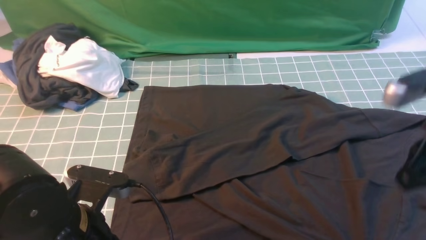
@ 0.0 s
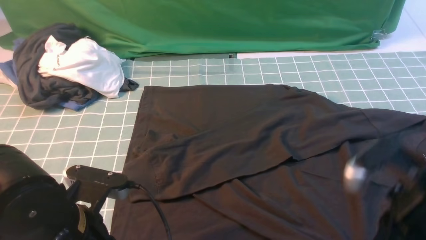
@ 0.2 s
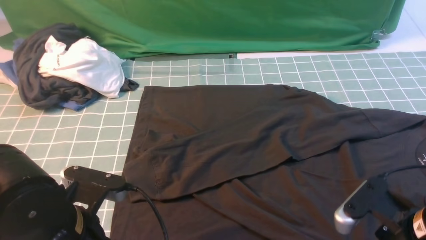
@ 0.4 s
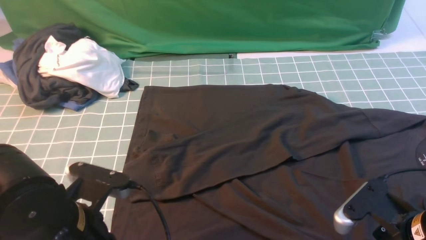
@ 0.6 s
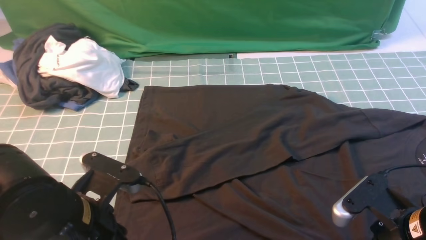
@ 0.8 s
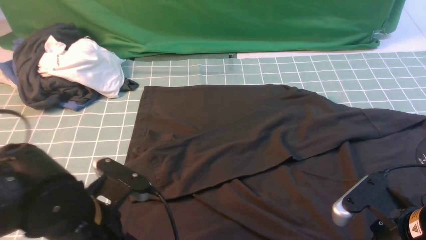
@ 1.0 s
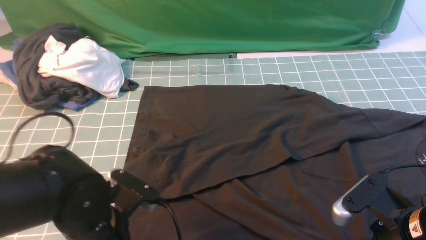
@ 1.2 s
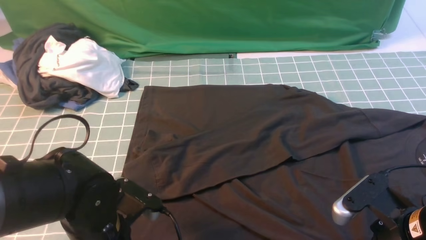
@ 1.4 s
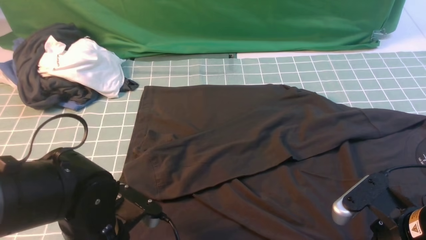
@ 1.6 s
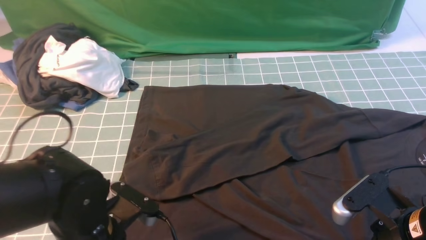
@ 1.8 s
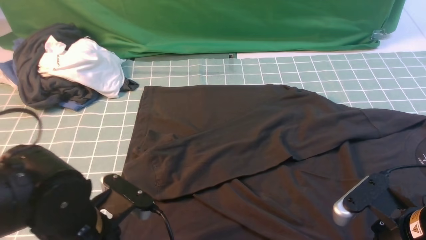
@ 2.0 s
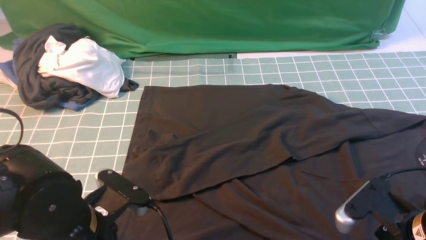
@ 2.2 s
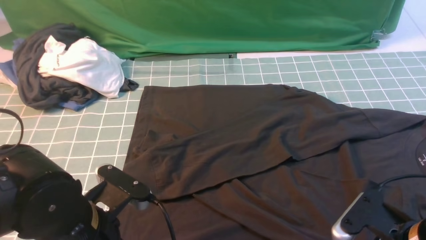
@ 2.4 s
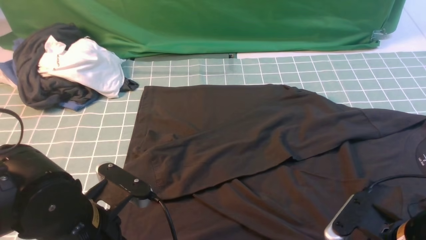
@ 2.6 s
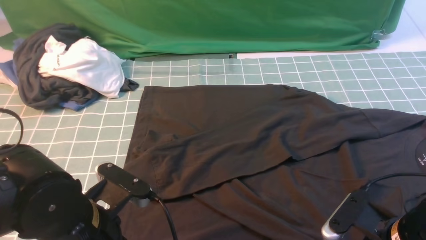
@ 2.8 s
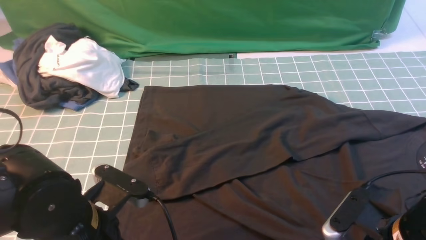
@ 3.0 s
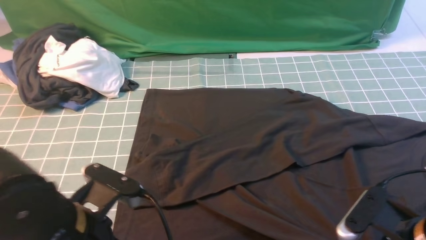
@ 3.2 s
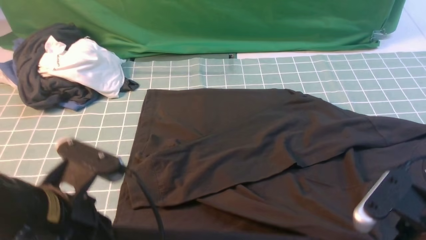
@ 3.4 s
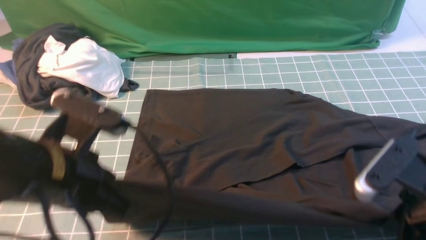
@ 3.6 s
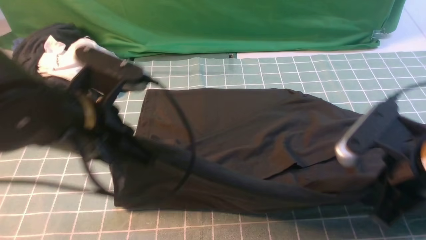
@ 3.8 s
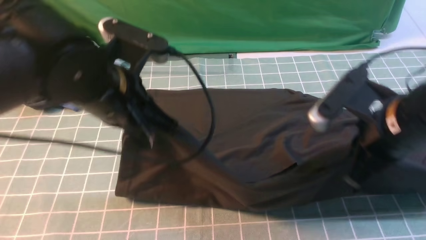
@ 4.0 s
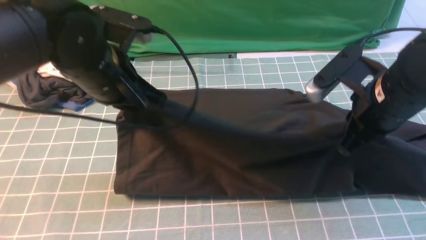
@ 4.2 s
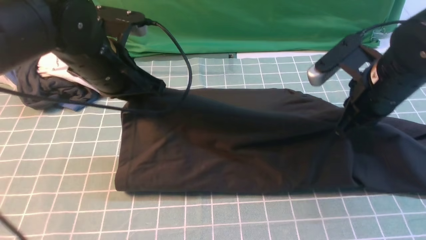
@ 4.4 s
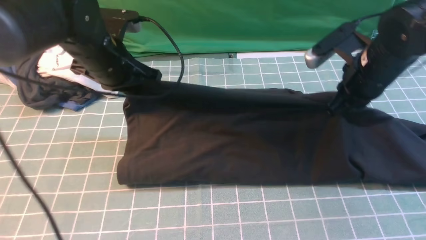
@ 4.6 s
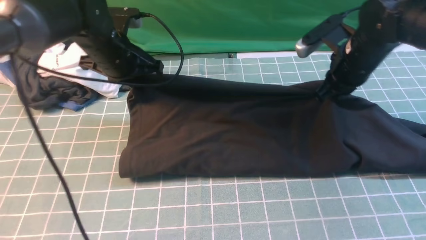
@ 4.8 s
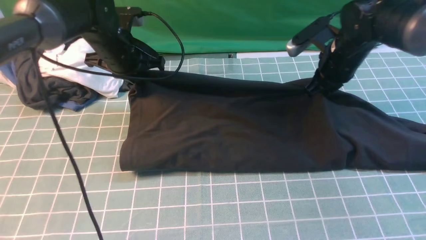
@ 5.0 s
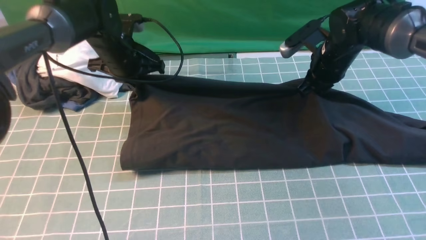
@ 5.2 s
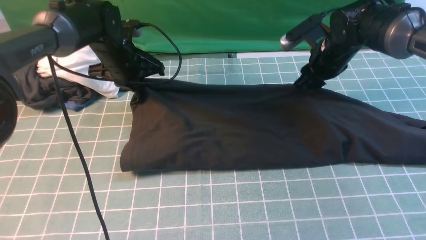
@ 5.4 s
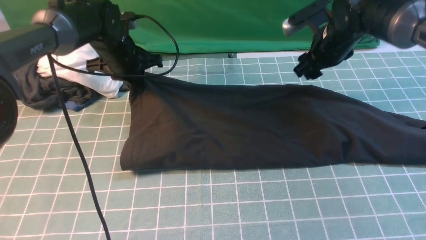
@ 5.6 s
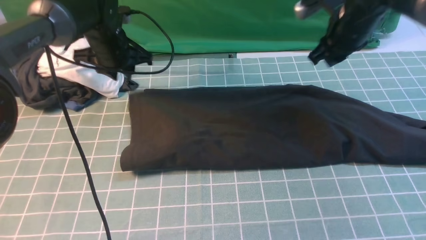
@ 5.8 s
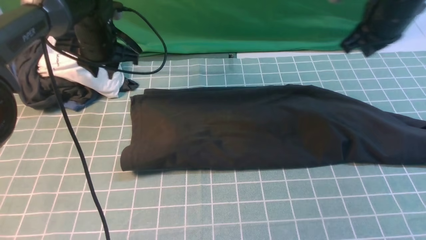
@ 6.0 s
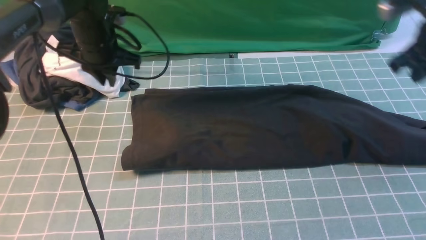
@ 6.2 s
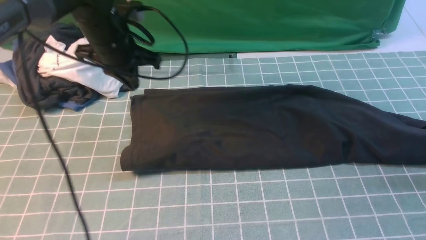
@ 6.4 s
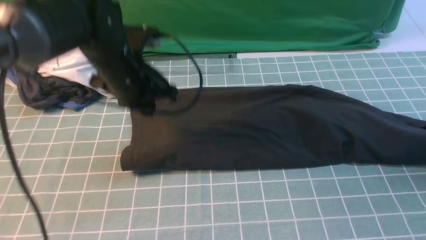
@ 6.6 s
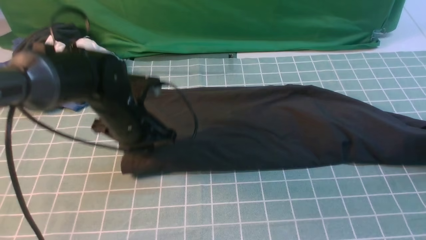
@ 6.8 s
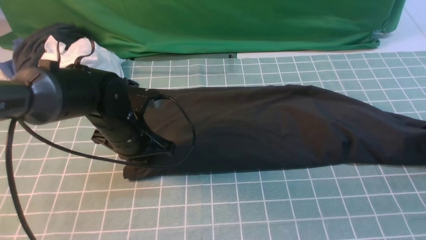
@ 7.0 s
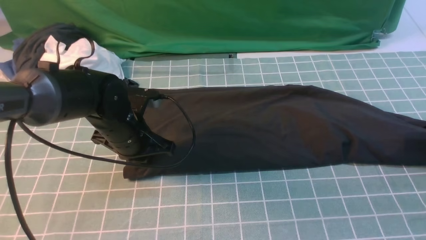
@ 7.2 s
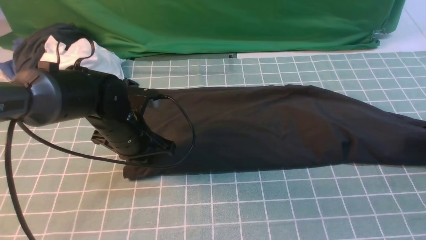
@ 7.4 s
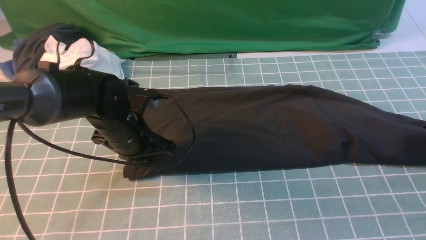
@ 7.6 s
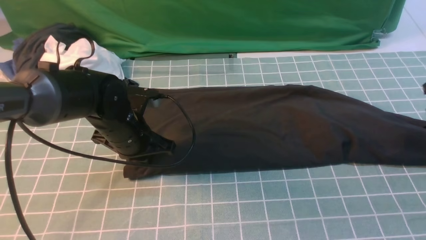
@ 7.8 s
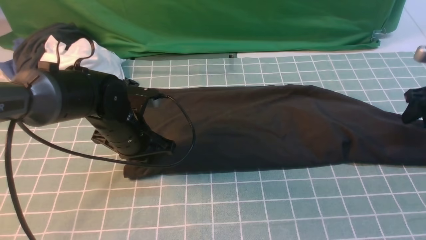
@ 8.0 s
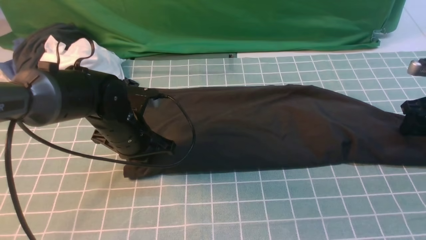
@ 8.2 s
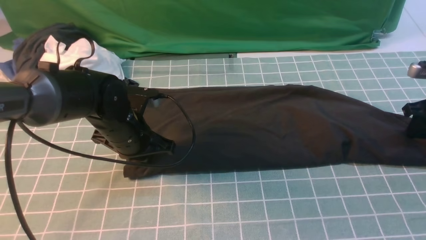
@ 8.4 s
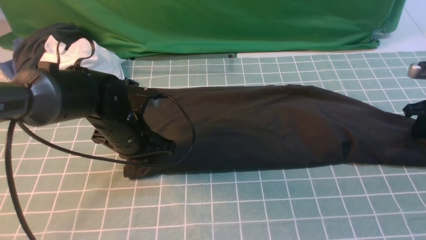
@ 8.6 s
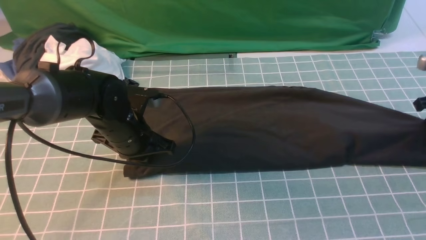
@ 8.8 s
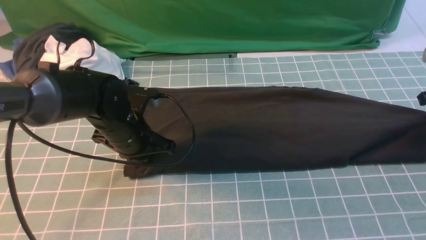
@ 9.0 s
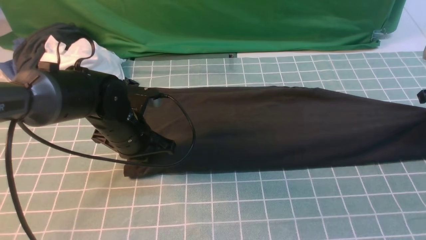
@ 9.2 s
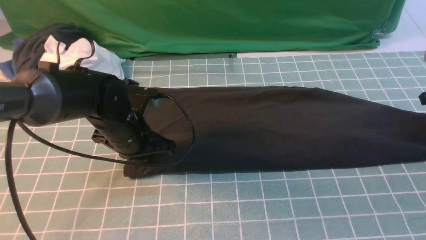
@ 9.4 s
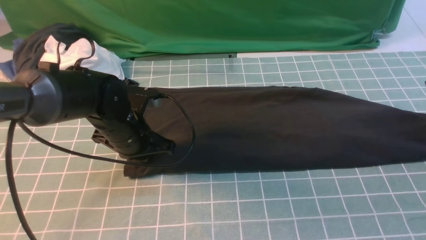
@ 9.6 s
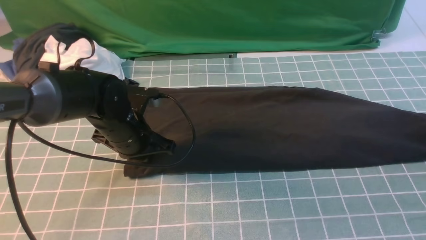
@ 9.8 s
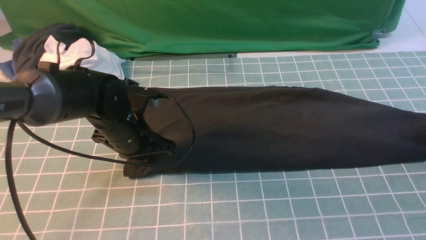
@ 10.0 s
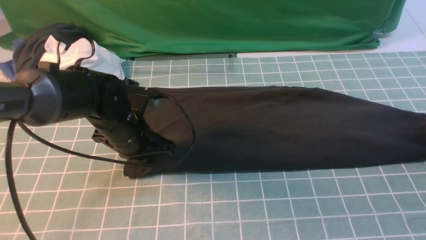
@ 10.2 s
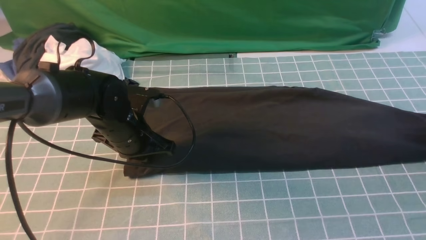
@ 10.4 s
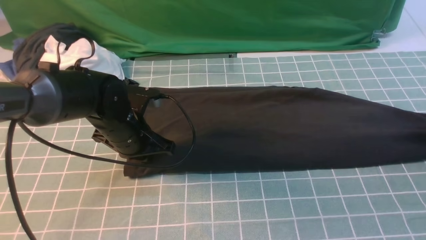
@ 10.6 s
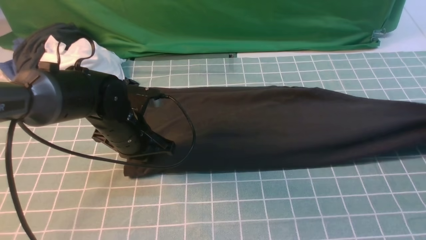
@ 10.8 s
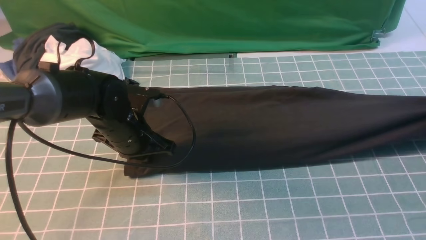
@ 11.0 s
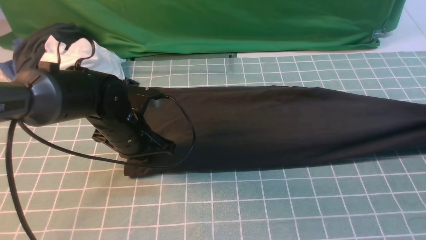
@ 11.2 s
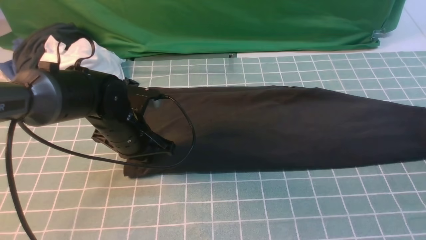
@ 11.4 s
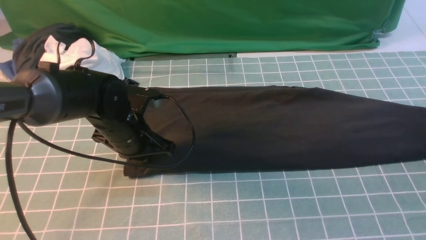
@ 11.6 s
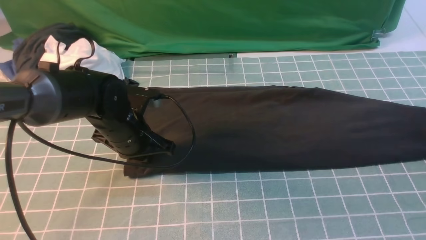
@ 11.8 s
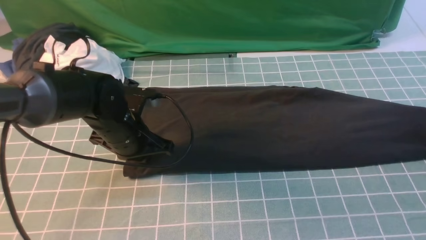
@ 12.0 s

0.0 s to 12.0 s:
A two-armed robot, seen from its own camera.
Step, 0.0 to 3.2 s: use both arms simultaneously to clamp the lower edge of the clothing fabric.
Step, 3.6 to 5.8 s: use both arms to drag the lower edge of the fabric forward and fold it over the upper edge.
0.0 to 1.6 s: The right gripper goes roughly 10 cm downward and backward, and opens up, while the left gripper ends up approximately 5 cm from where it was, and opens, then closes once more.
1.6 to 3.0 s: The right gripper closes.
3.0 to 4.4 s: The left gripper shifts approximately 20 cm forward, while the right gripper travels forward and upward by about 20 cm.
4.4 to 6.0 s: The right gripper moves forward and to the right, about 10 cm, and opens, then closes once more. The left gripper is displaced forward and to the left by approximately 15 cm.
6.0 to 7.6 s: The left gripper heads backward, downward and to the right, covering roughly 15 cm, and closes its fingers. Meanwhile the right gripper shifts approximately 20 cm to the right and downward, and opens, then closes once more.
7.6 to 9.0 s: The right gripper opens and closes again.
10.4 to 12.0 s: The right gripper opens its fingers.

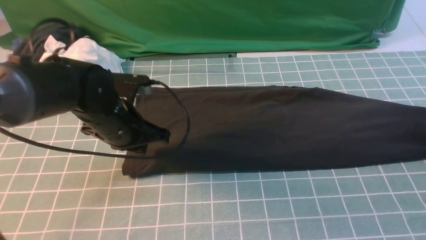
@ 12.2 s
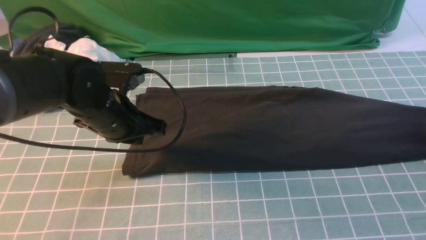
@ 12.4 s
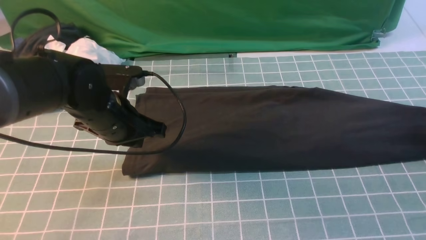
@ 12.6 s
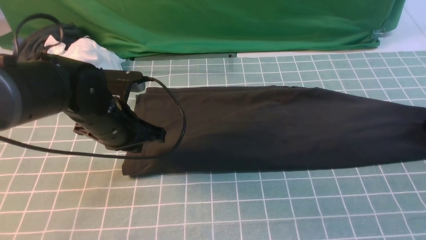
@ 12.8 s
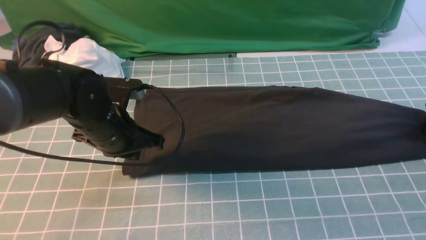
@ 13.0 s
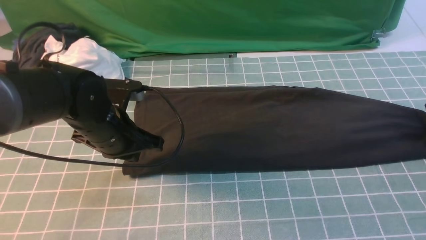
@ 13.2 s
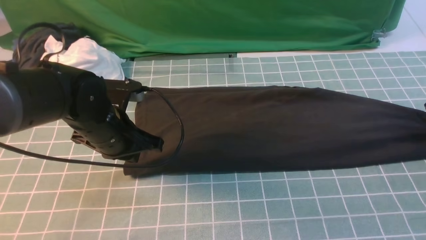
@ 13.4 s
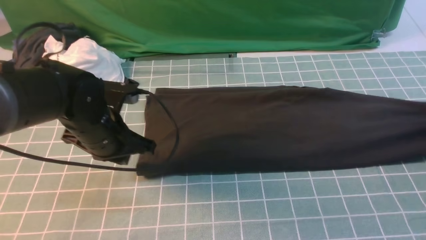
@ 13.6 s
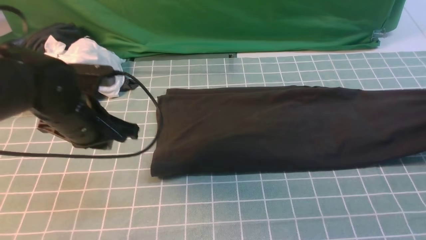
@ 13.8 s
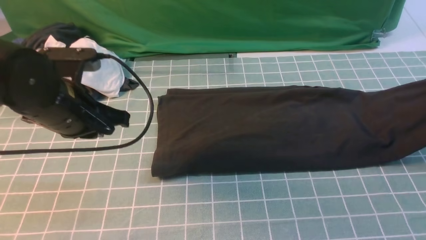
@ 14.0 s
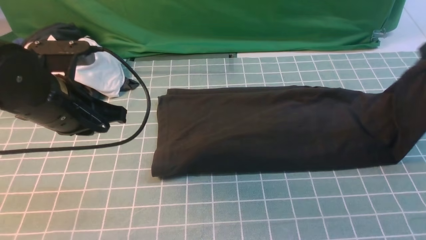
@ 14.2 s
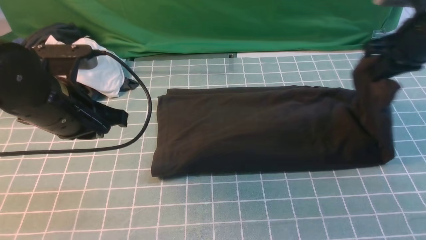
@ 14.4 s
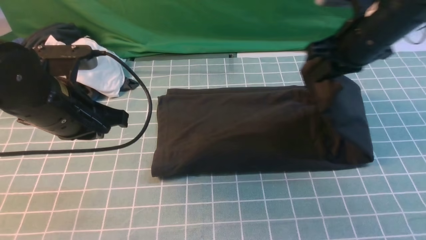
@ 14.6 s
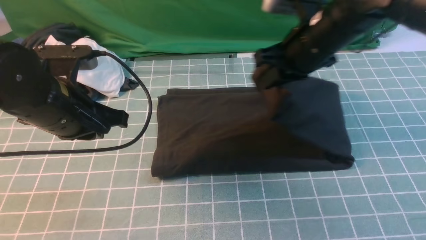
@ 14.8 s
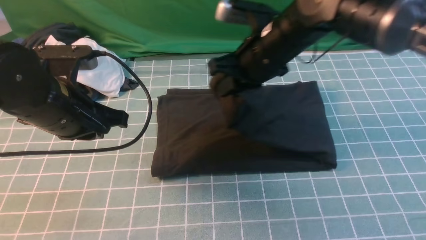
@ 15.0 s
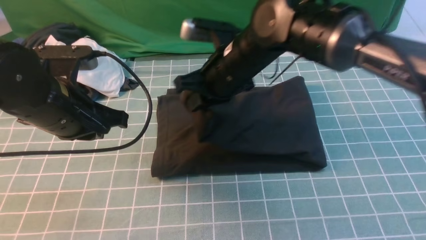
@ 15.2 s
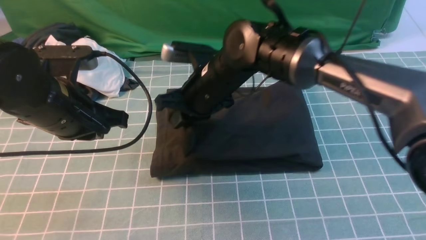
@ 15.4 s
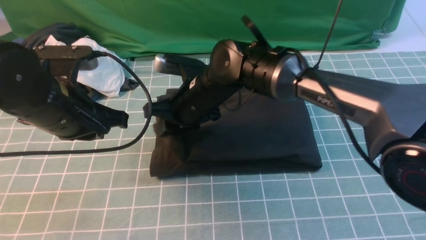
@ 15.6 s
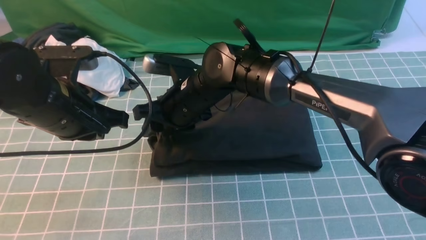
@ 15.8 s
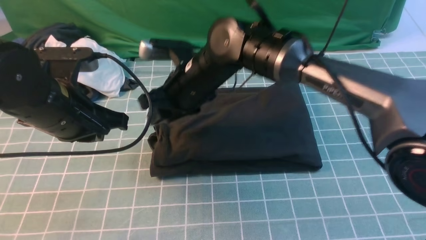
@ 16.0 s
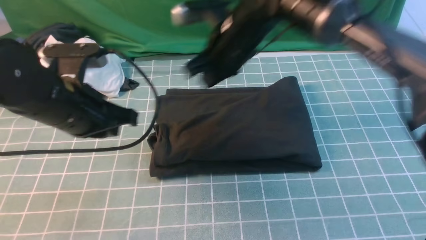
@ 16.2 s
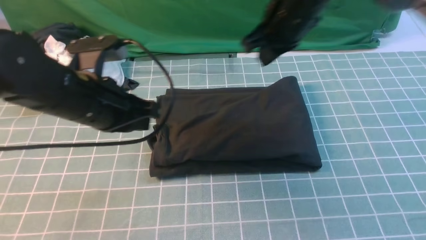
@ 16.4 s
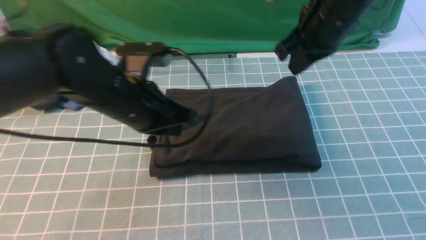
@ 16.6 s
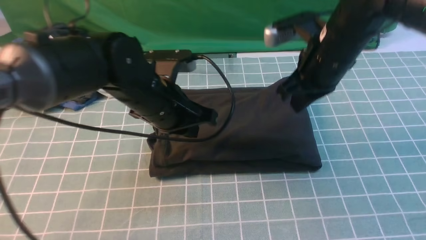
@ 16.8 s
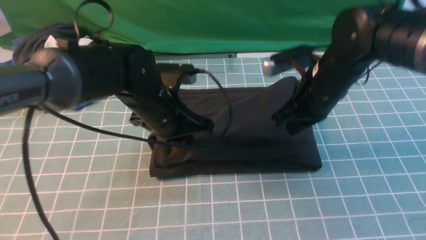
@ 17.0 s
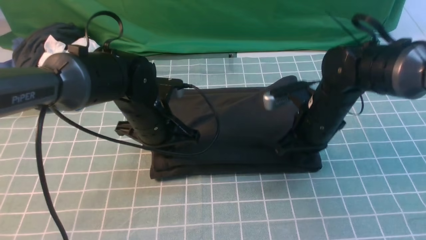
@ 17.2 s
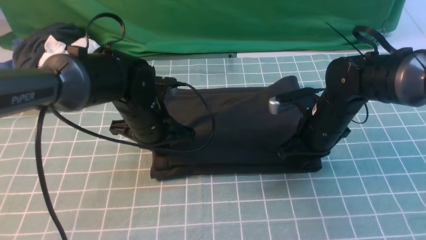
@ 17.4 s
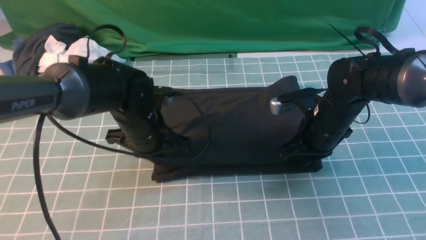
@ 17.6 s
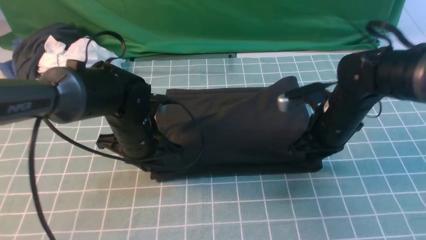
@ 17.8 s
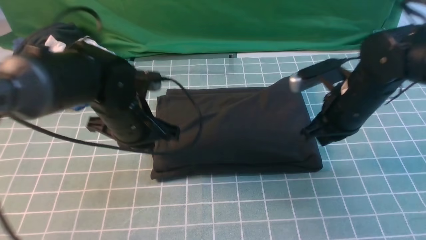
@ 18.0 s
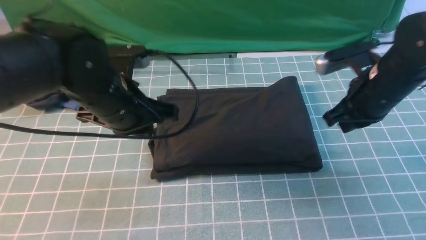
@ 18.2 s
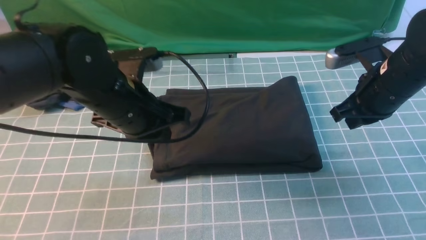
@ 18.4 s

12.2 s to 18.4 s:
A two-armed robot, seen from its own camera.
Step, 13.8 to 16.2 s: use the right arm to drag the right edge of the fabric to the left and folds it over the left edge.
12.2 to 13.8 s: The right gripper closes up; the left gripper ends up roughly 5 cm from where it was.
13.8 to 15.4 s: The right gripper moves to the left, roughly 50 cm.
15.4 to 16.8 s: The left gripper is displaced to the right and forward by roughly 10 cm. Meanwhile the right gripper is displaced to the right by roughly 15 cm, and opens, then closes once more.
16.8 to 18.4 s: The right gripper moves to the right, roughly 10 cm, and travels downward and back again, approximately 10 cm each way; the left gripper goes downward and returns, roughly 5 cm each way.
